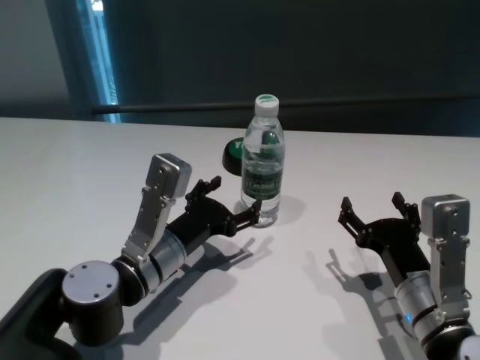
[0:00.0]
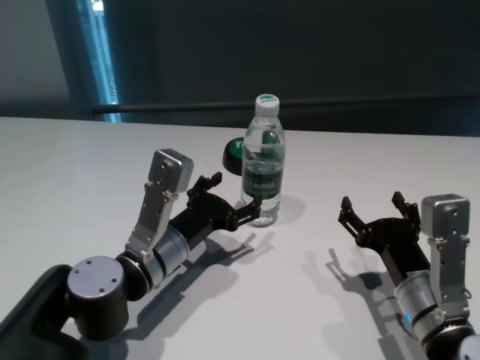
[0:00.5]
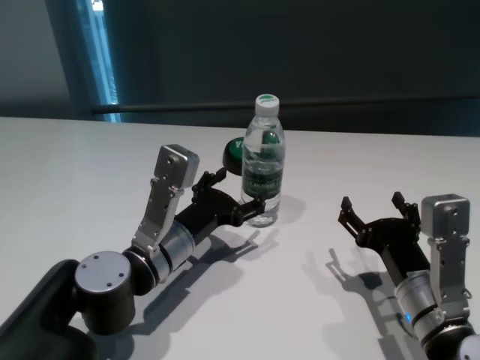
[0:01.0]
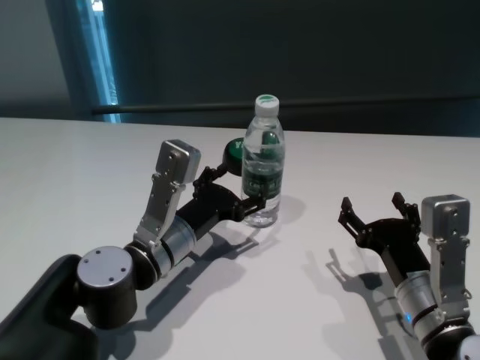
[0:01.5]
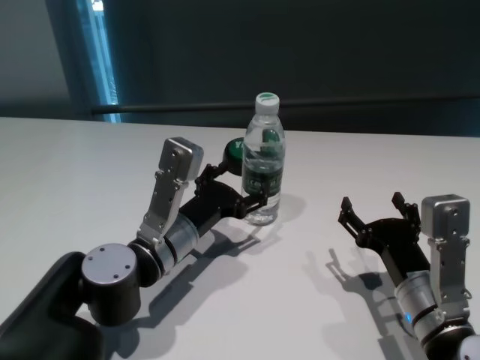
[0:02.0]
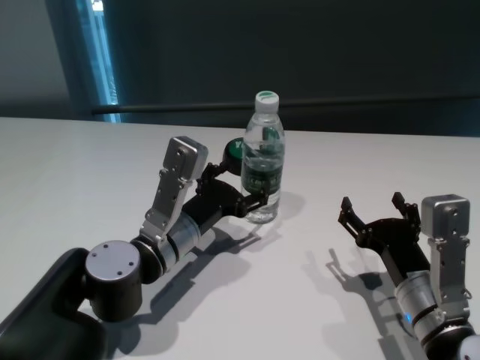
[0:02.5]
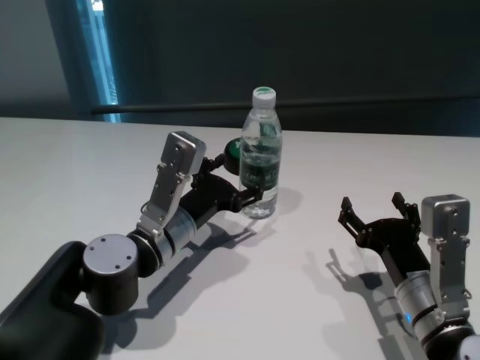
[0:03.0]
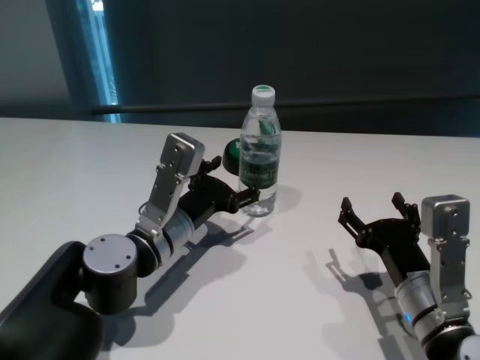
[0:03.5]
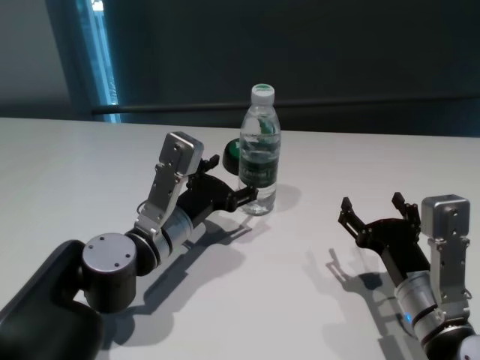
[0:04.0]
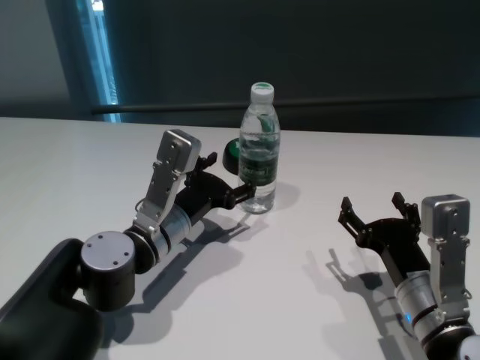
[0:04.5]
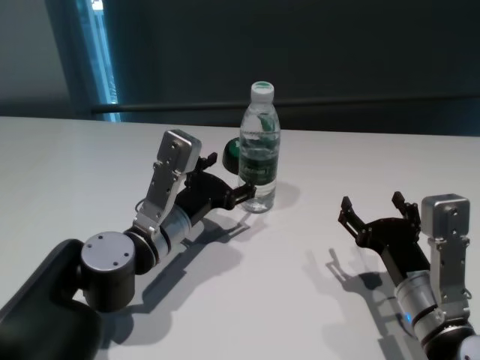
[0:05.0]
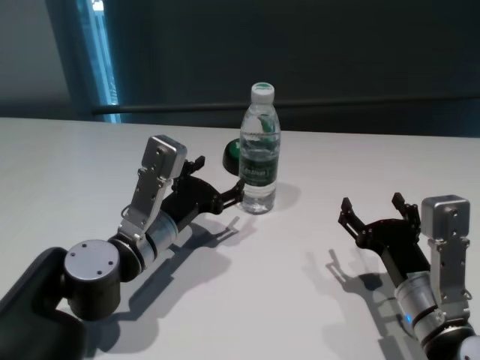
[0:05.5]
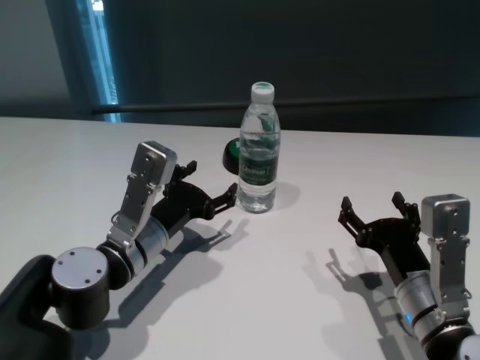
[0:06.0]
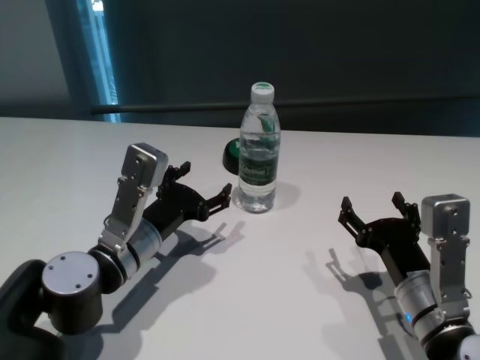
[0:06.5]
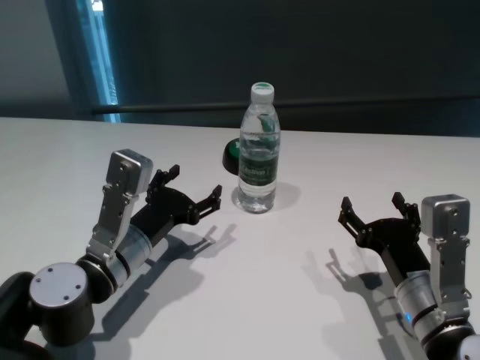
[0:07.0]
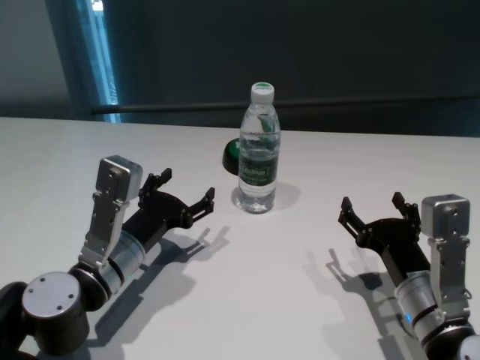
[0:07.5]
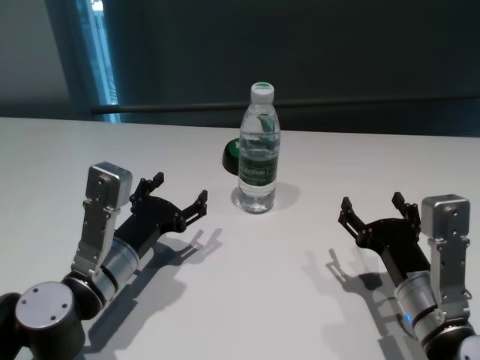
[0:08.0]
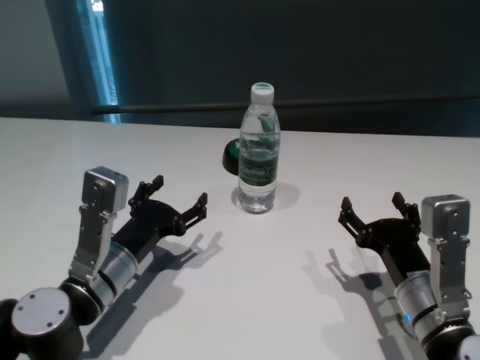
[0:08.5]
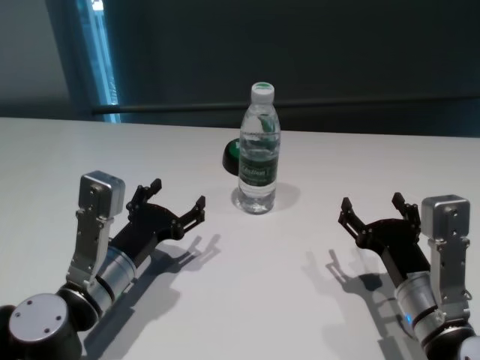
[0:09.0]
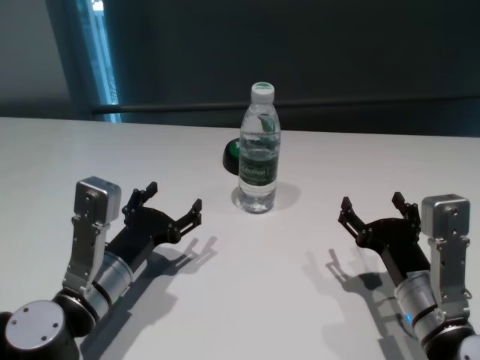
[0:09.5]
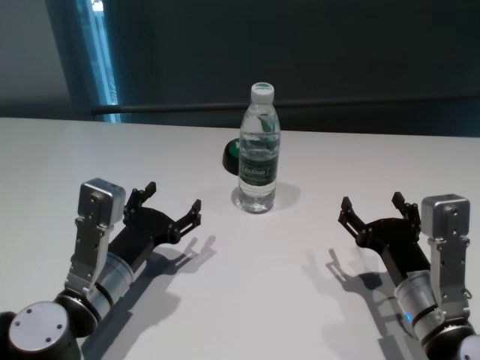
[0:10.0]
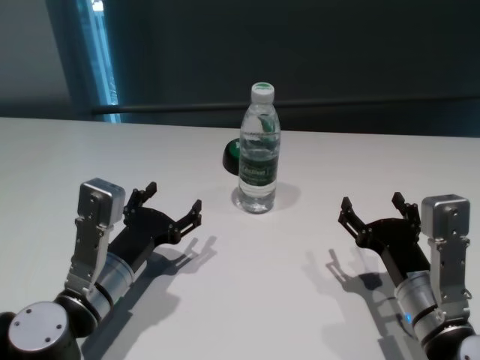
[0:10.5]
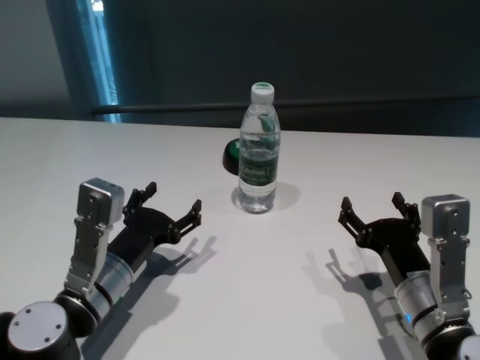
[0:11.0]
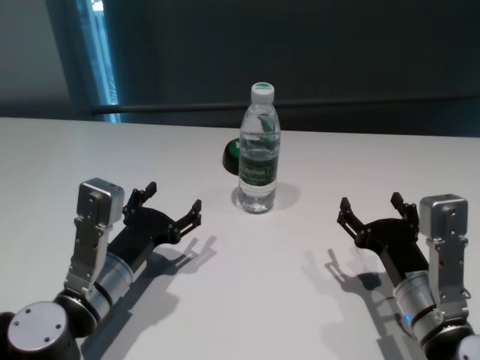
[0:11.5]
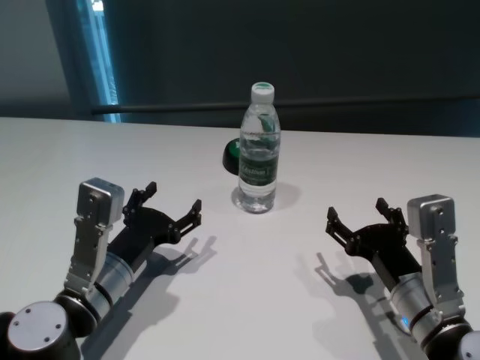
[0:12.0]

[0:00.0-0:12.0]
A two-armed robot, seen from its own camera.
Task of the whole recording: return to a safe position after touching an obstacle with your arm on the white table.
Step, 0:00.0 to 0:06.0: Touch the bottle with left gripper.

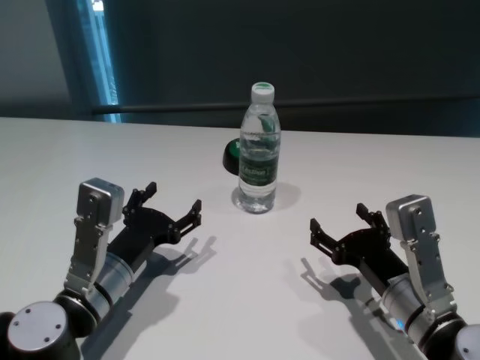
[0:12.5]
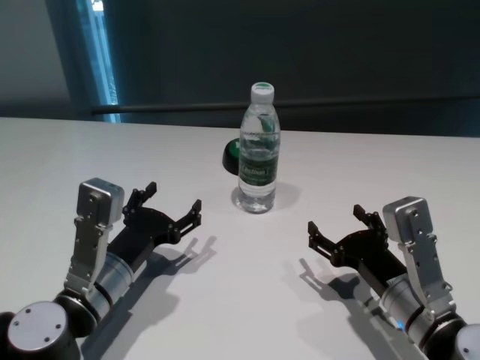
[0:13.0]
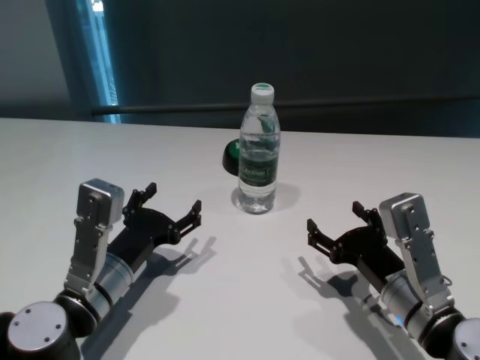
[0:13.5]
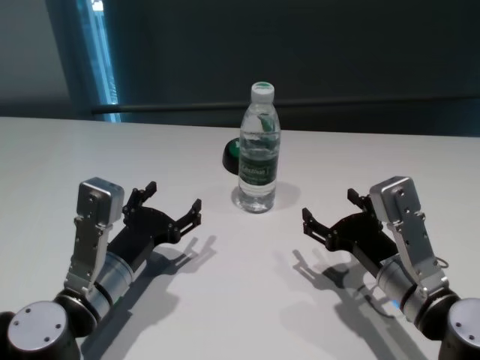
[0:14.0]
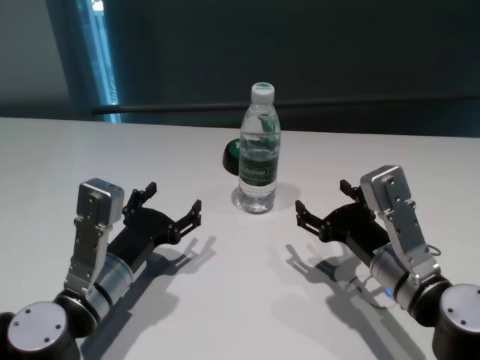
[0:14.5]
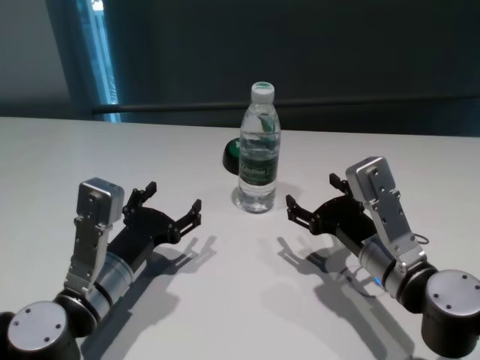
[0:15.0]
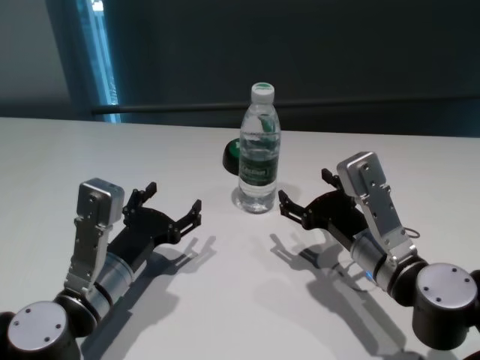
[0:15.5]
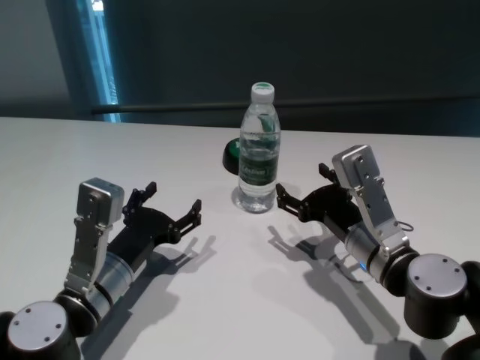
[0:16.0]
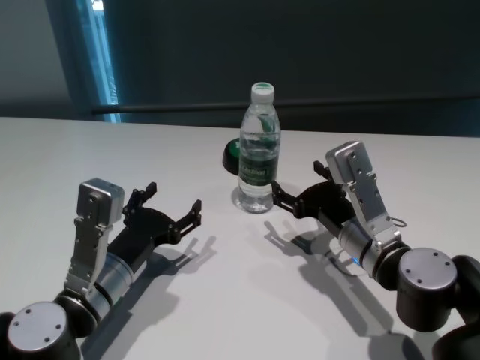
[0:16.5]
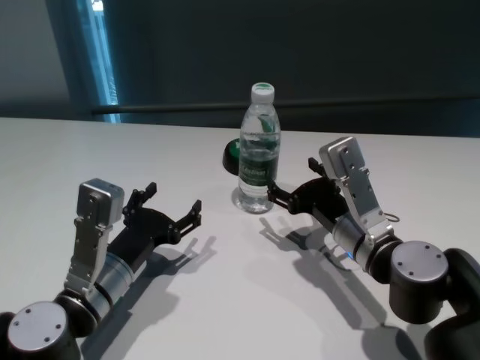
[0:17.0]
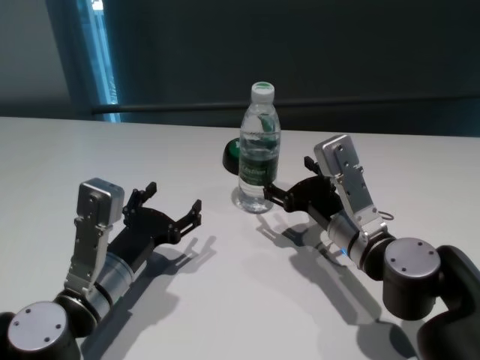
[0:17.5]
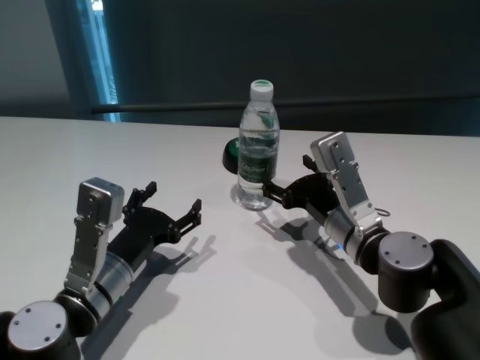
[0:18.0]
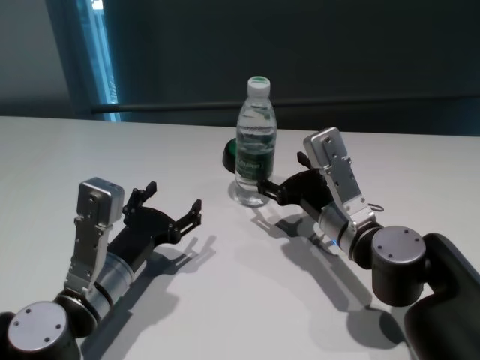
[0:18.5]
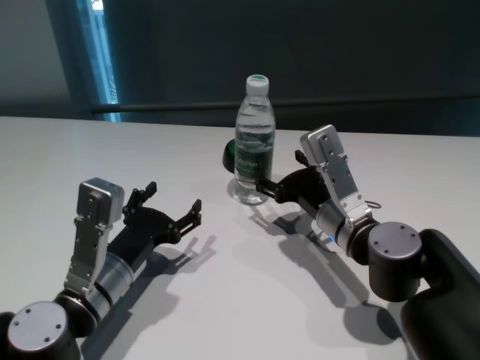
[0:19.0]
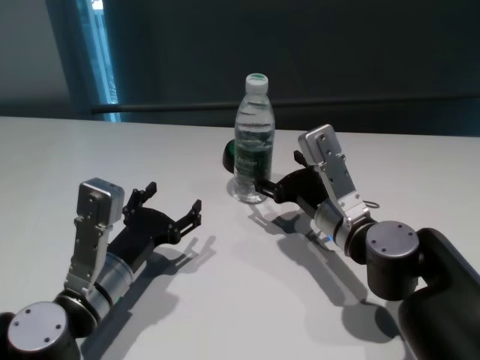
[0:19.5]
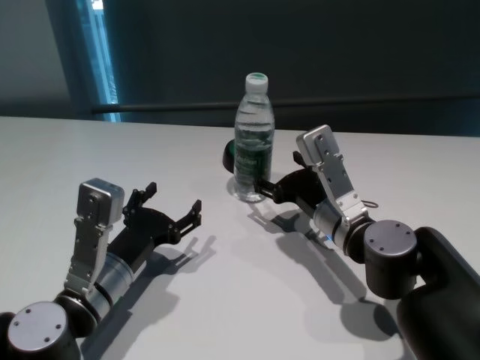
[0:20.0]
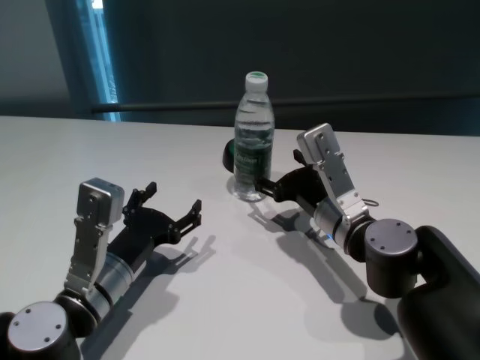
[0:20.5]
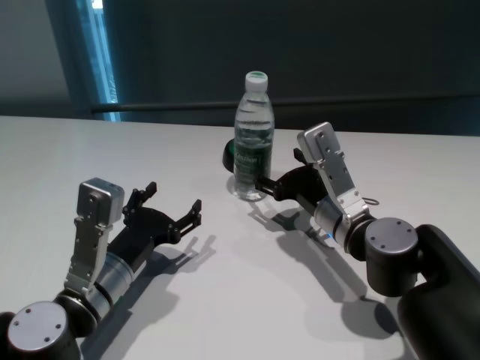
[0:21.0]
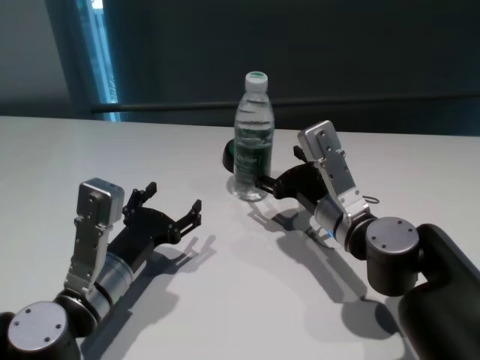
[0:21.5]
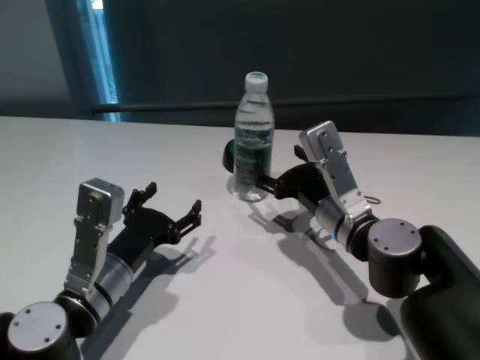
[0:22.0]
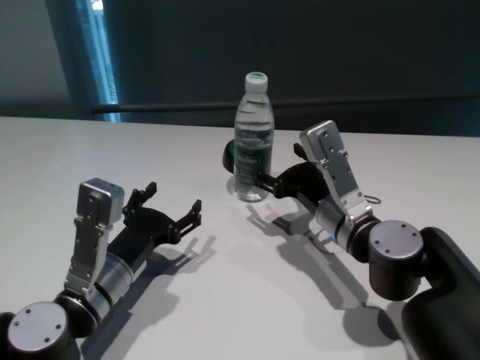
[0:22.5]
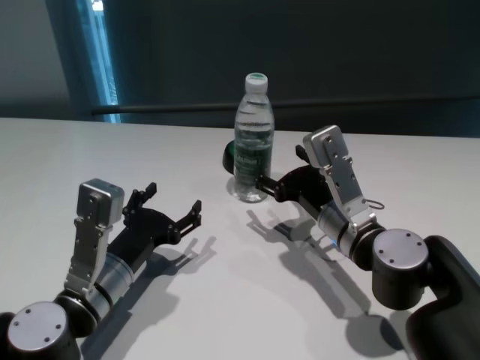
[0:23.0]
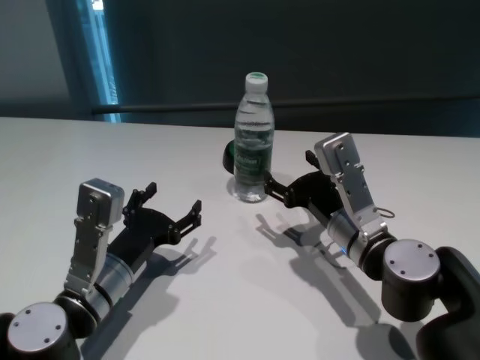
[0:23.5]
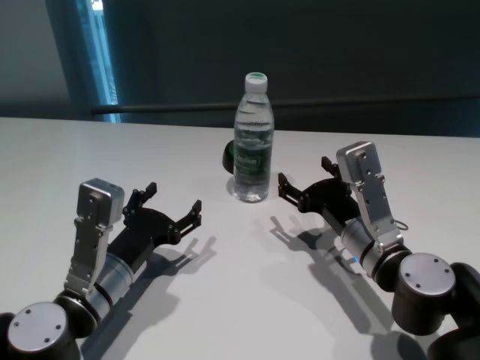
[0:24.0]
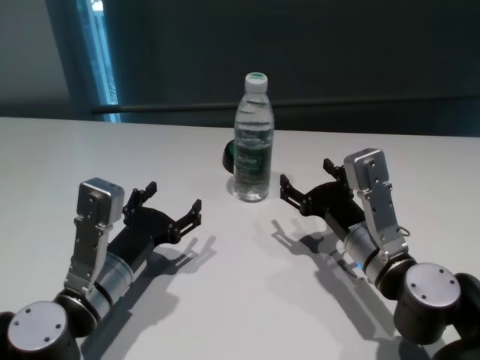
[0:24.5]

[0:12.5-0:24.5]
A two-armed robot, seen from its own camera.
Task of the whole recording: return to a safe position after touching an obstacle with your arm on the white table.
Step, 0:12.5 to 0:24.0: Touch the bottle with right gripper.

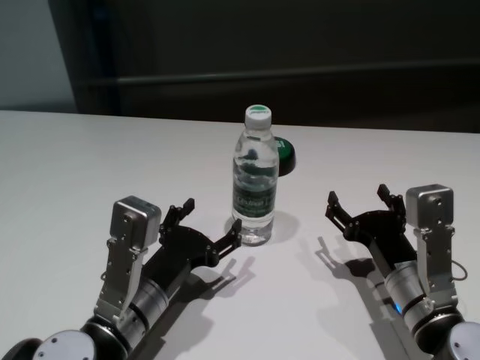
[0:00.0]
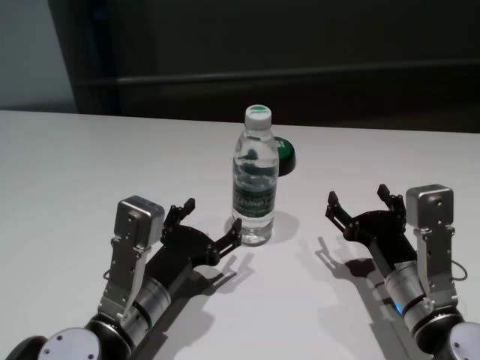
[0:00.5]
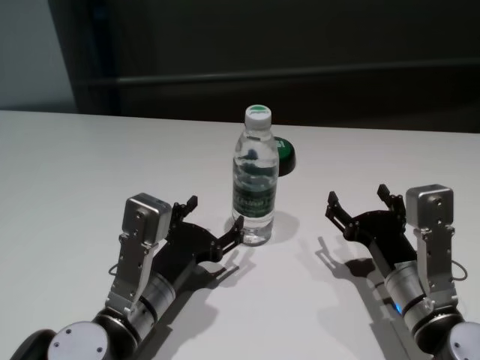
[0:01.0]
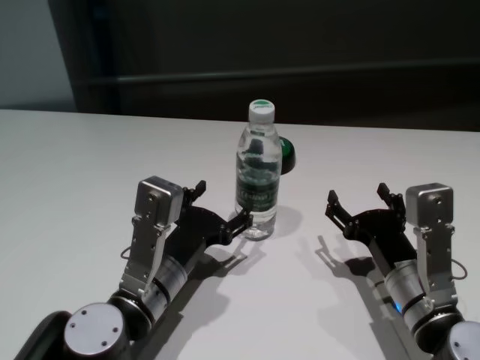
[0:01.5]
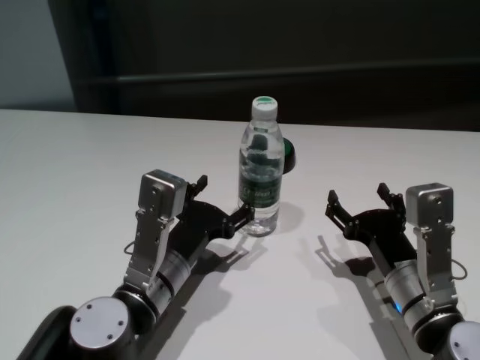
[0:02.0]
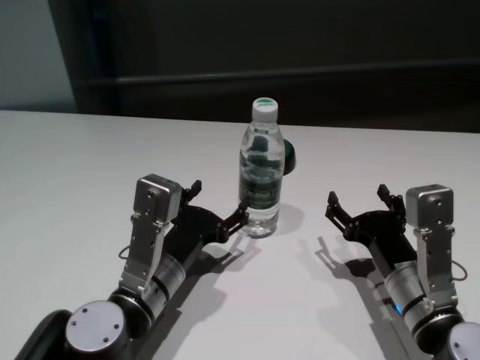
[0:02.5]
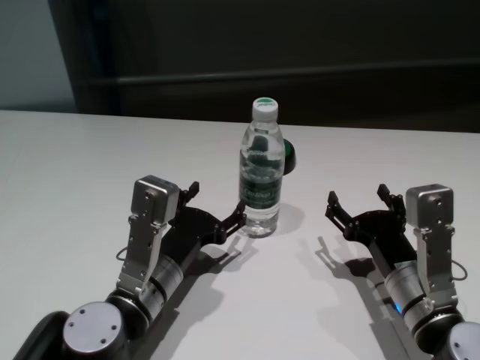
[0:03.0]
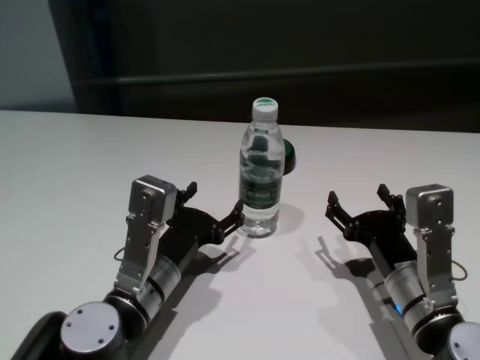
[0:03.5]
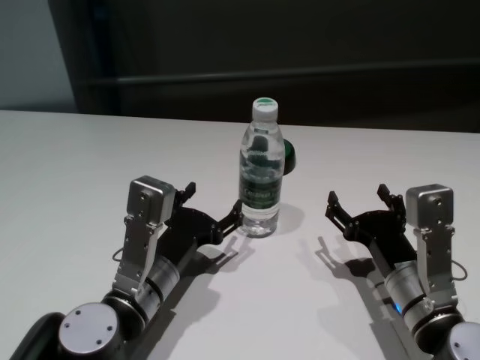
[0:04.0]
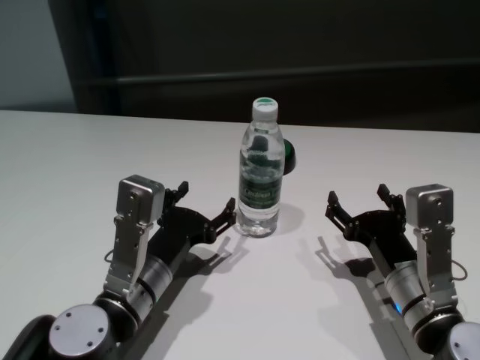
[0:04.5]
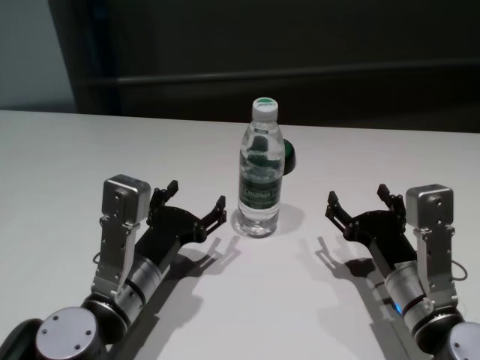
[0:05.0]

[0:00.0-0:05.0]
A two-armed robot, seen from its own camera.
Task of the whole recording: return to a safe position after touching an obstacle with your arm on the white table.
Step, 0:00.0 to 0:04.5: Touch the bottle with left gripper.
